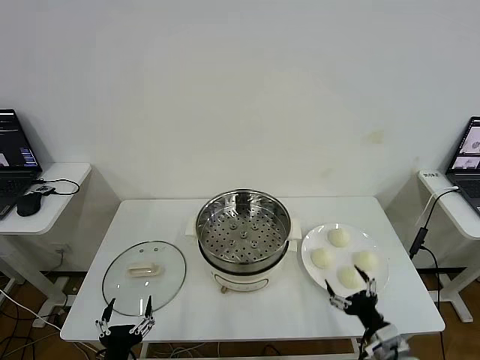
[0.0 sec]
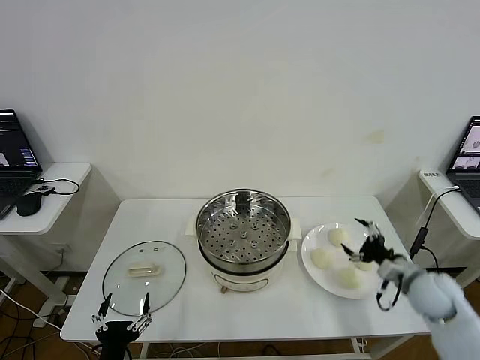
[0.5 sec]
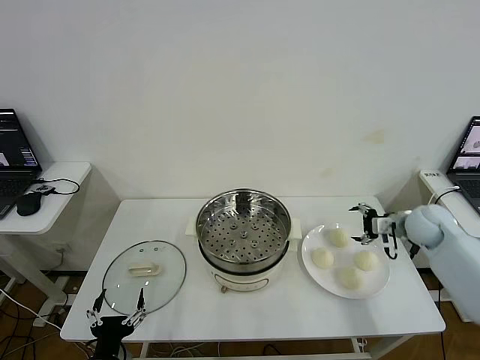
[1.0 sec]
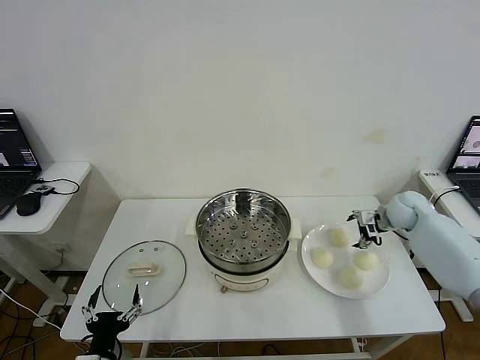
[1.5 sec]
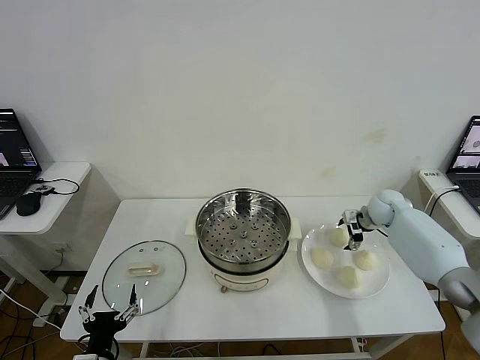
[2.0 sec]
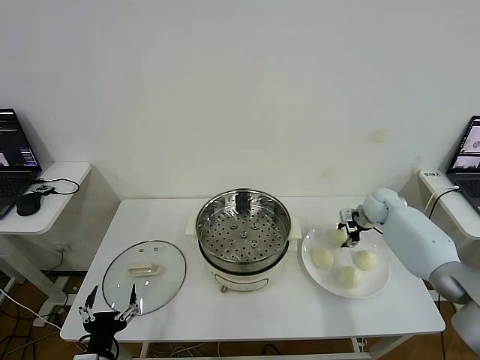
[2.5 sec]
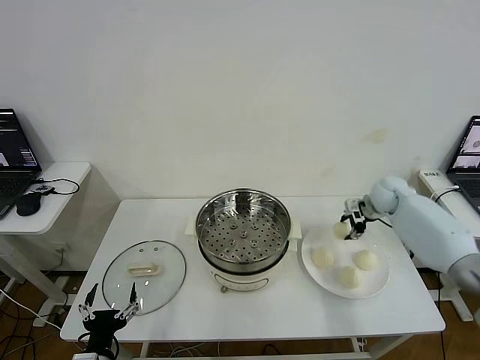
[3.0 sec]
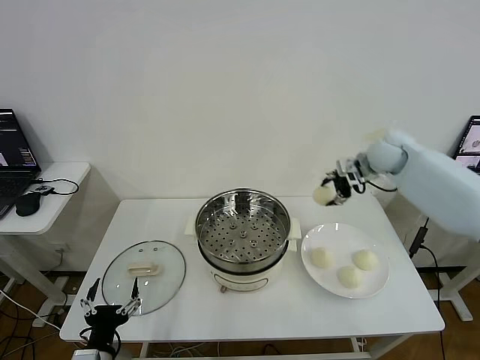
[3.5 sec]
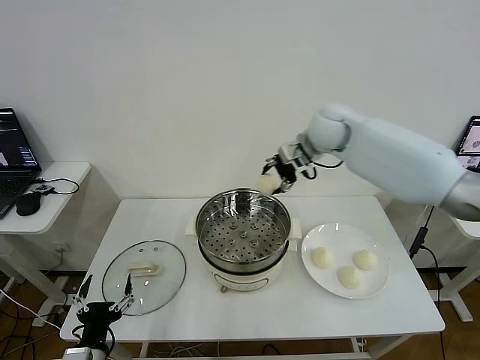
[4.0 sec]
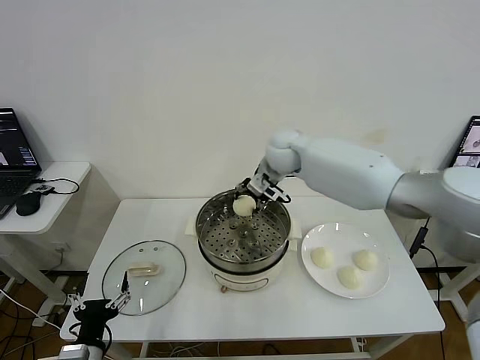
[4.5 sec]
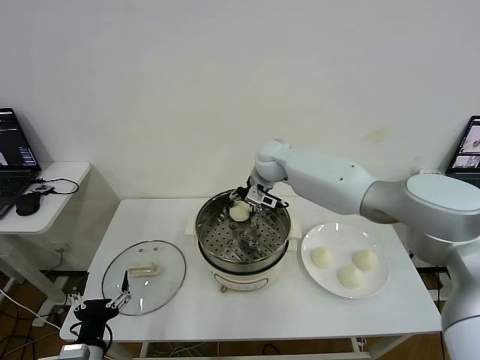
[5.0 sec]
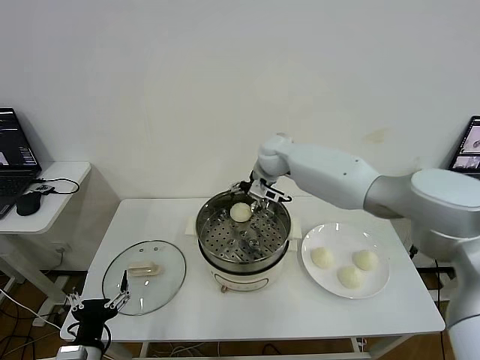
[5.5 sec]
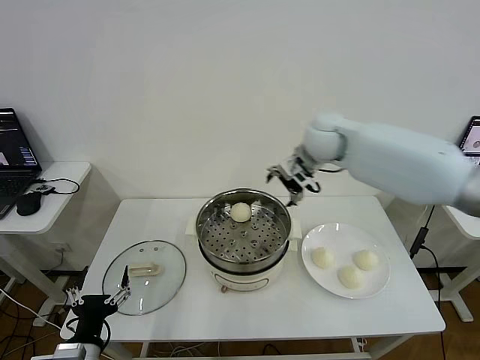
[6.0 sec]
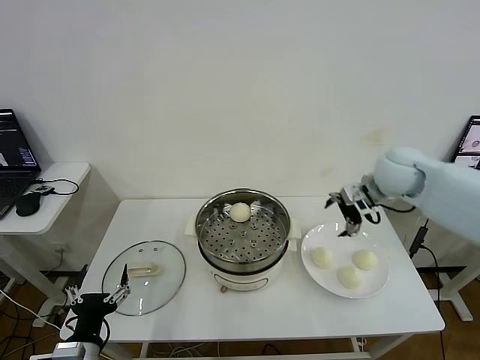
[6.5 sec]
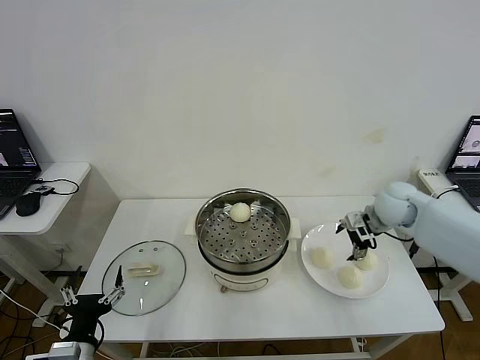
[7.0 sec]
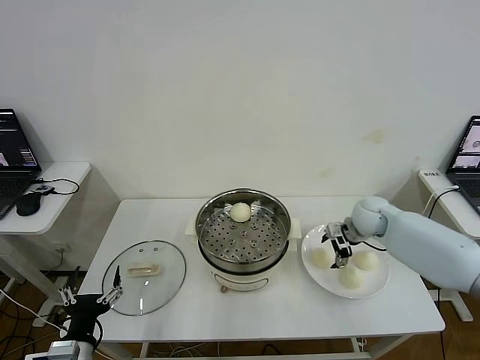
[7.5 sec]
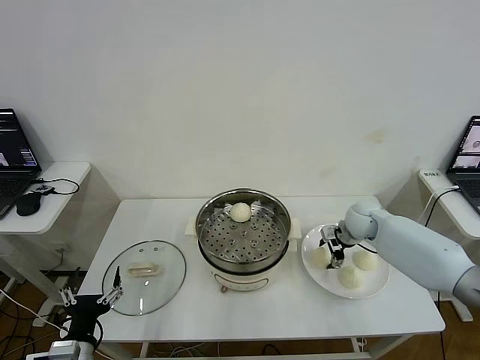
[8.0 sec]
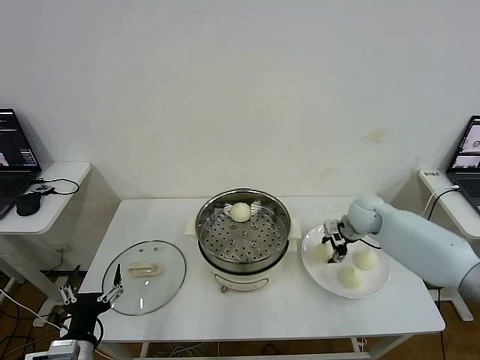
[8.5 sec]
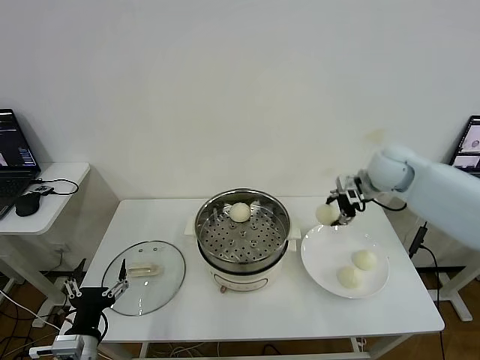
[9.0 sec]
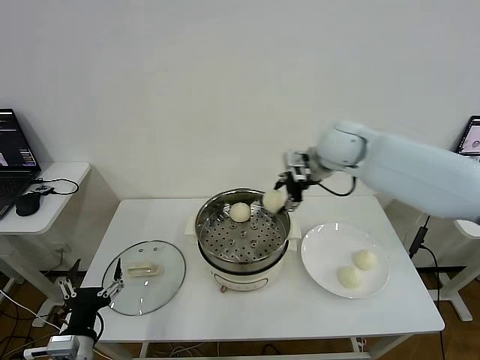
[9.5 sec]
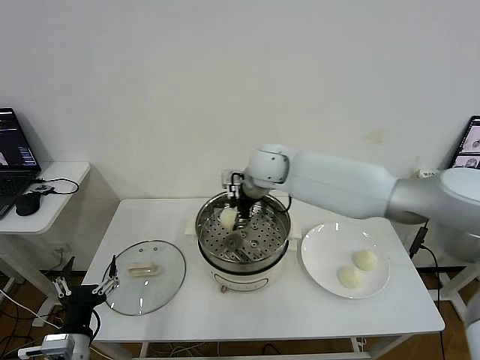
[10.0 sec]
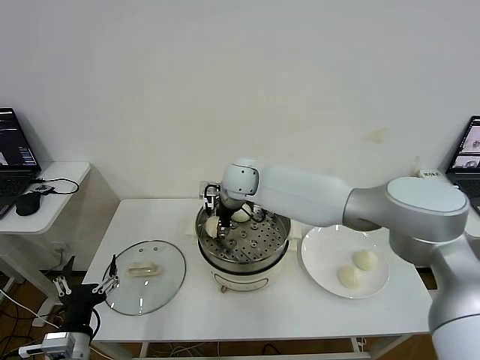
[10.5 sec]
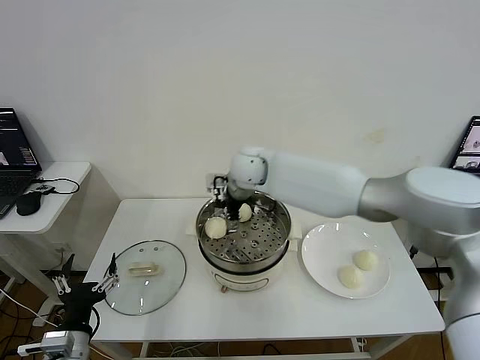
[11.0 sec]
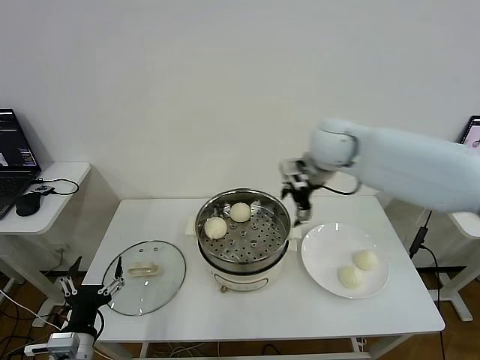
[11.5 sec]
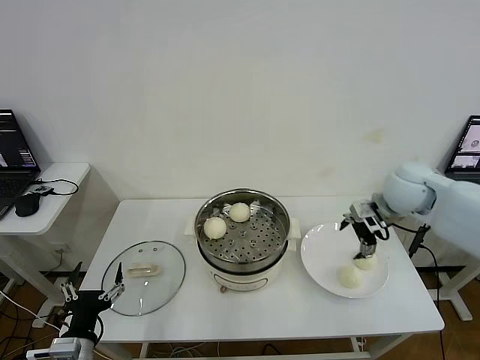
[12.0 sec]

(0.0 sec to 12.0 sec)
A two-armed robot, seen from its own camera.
Step, 0.0 sec - 2.5 sec: Grasp the baozi in the plate with right gripper.
Step, 3.0 sec - 5.0 sec: Place the baozi on the steamer with right gripper.
Step, 5.5 sec - 8.0 sec: Grasp the baozi in the plate with right gripper.
Step, 8.5 sec - 10.5 sec: Place the baozi on the steamer with right gripper.
2.0 sec - 4.0 sec: The right gripper heads upward and to the left, covering some 30 cm, and closes its fingers.
4.0 sec - 6.0 sec: The right gripper reaches some 10 cm to the left, then returns, and opens up.
6.0 sec - 8.0 sec: The right gripper moves downward and to the right, some 25 cm, and closes up.
8.0 sec - 10.0 sec: The right gripper is displaced to the left and upward by about 30 cm.
10.0 sec - 12.0 sec: The right gripper is displaced to the right by some 30 cm, and opens up.

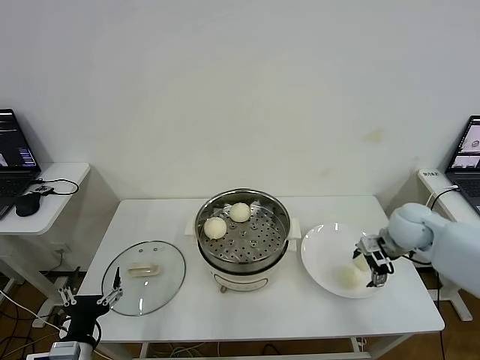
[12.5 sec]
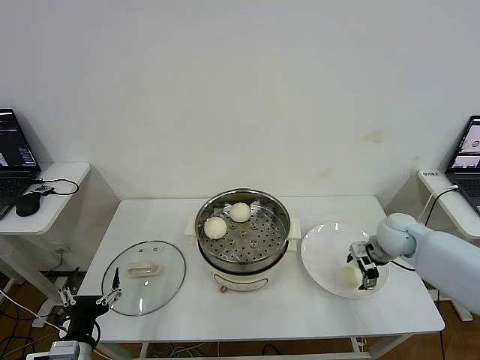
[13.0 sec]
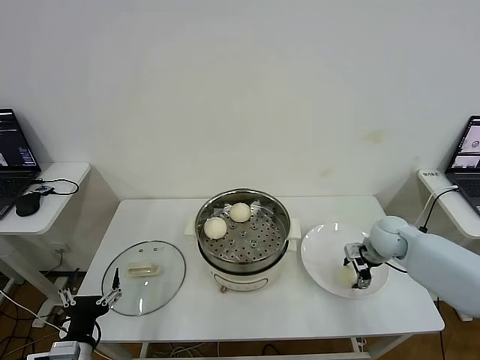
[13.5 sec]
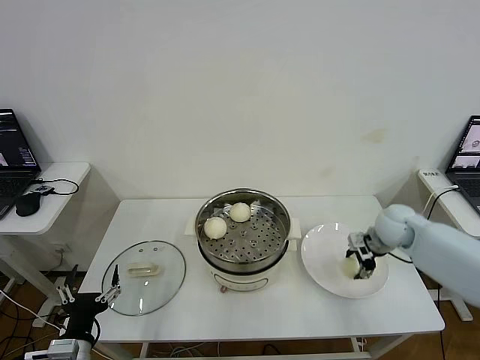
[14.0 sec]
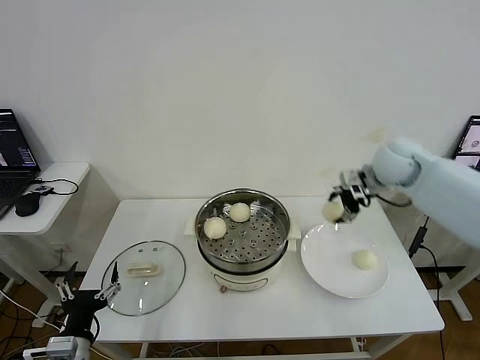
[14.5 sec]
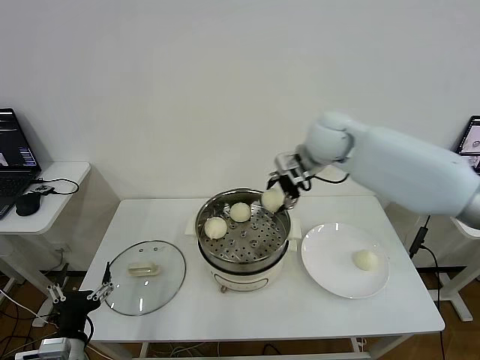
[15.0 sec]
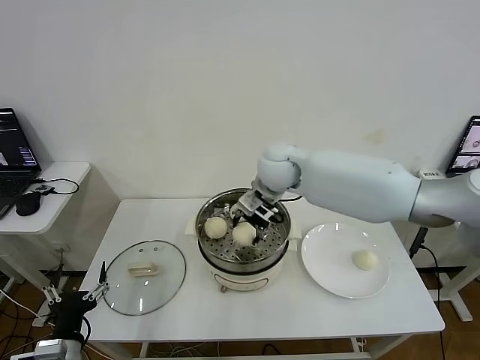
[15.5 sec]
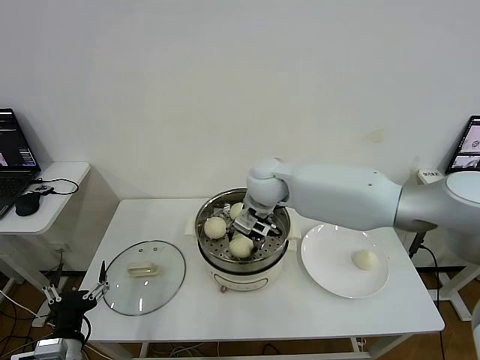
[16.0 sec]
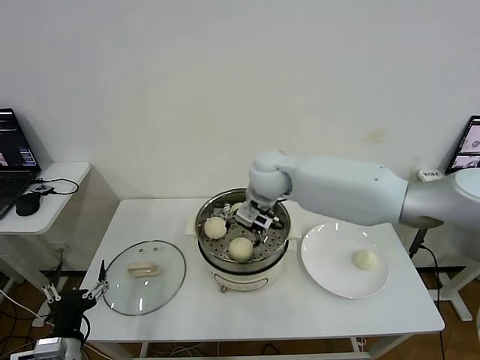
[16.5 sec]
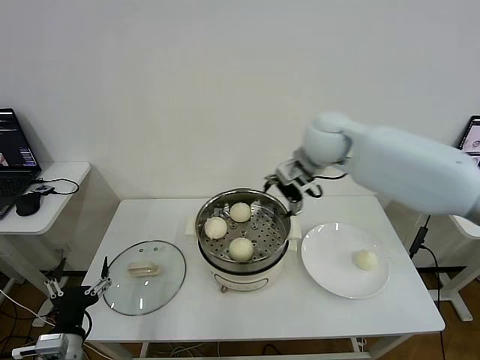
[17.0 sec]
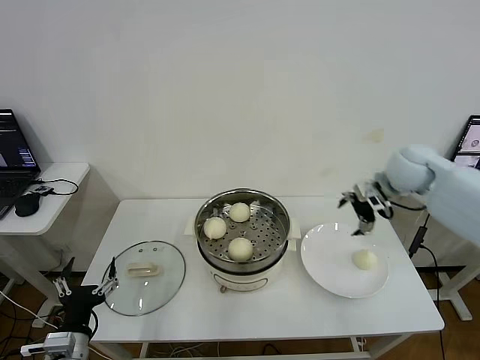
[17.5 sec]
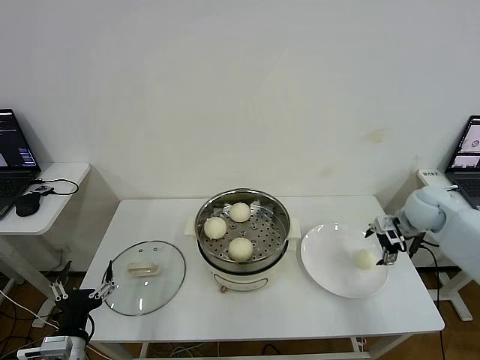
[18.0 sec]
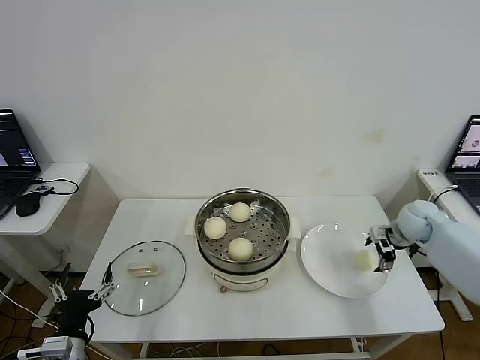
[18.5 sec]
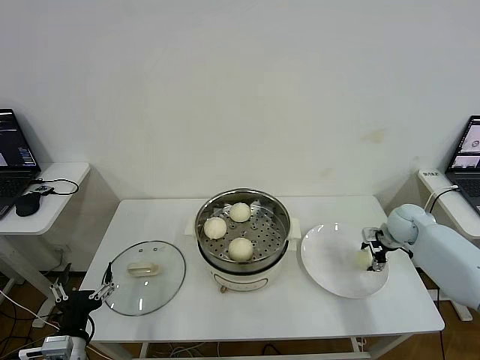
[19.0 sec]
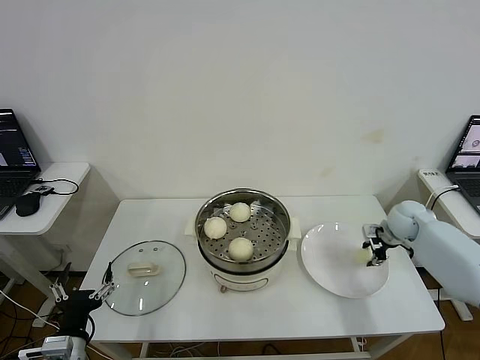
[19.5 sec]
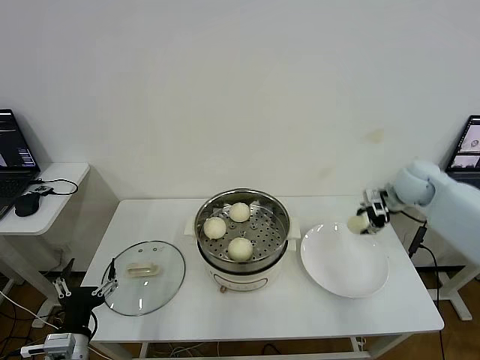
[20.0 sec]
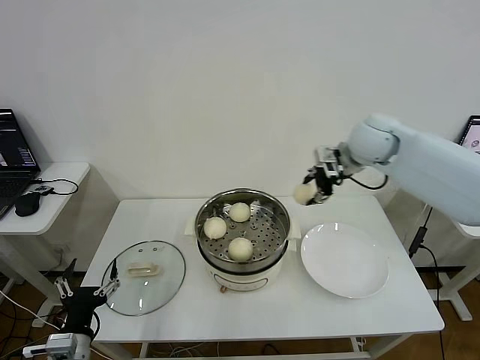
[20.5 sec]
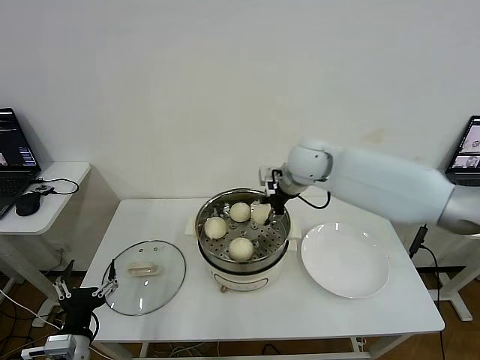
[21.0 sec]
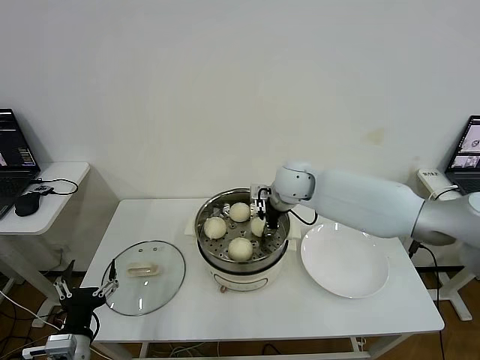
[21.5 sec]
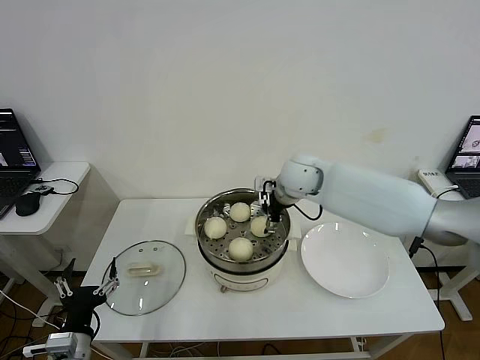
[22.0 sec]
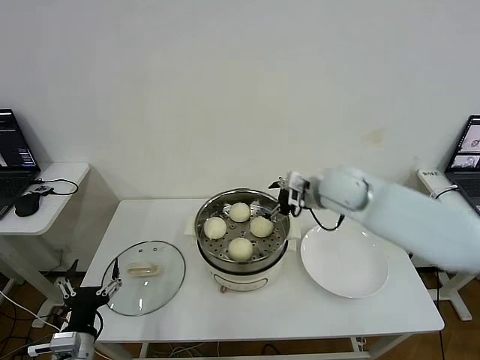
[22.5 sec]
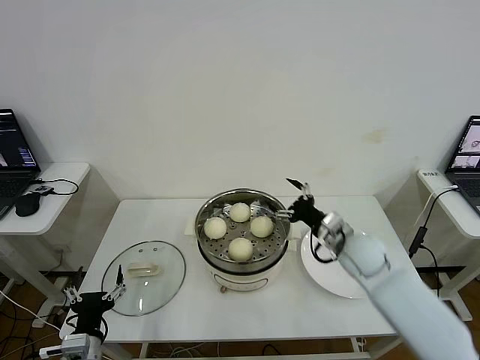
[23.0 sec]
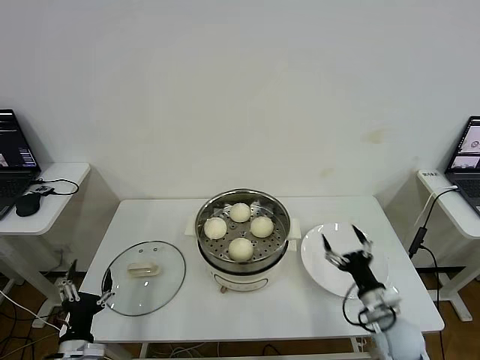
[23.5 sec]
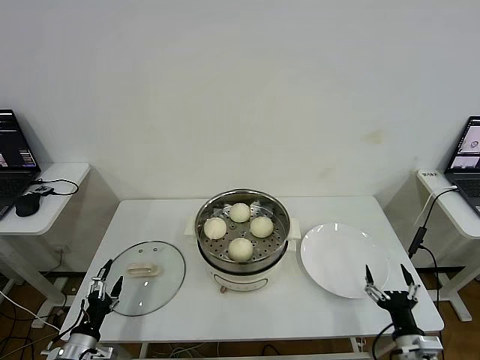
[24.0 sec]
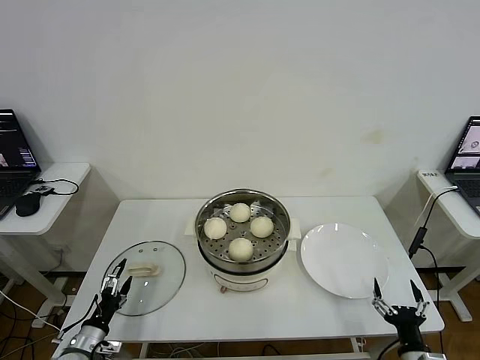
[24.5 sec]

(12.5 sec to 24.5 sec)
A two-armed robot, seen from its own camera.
Step, 14.0 sec - 16.0 sec: Place the baozi on the steamer with right gripper.
Step, 16.5 sec - 19.0 sec: Grasp the baozi in the plate with right gripper.
Step, 19.5 sec - 21.5 sec: Place the baozi on the steamer with right gripper.
12.5 sec - 14.5 sec: The right gripper travels upward, forward and to the left by roughly 15 cm, and closes.
14.5 sec - 16.5 sec: The right gripper is displaced to the left by approximately 25 cm, and opens.
16.5 sec - 18.5 sec: The right gripper shifts roughly 40 cm to the right.
18.5 sec - 20.5 sec: The right gripper heads upward and to the left, covering roughly 25 cm, and closes its fingers.
20.5 sec - 22.5 sec: The right gripper moves downward, to the left and backward, approximately 10 cm, and opens its fingers.
22.5 sec - 24.5 sec: The right gripper travels backward, downward and to the right by roughly 50 cm, while the left gripper goes about 15 cm downward and to the left.

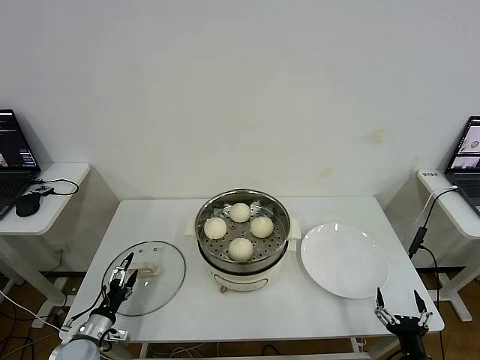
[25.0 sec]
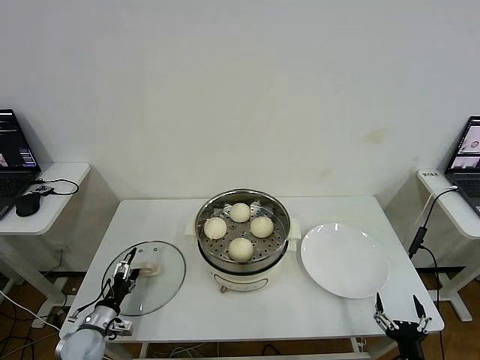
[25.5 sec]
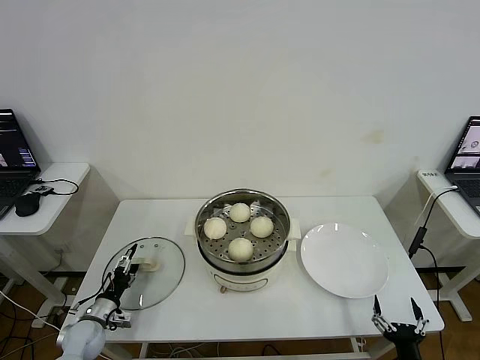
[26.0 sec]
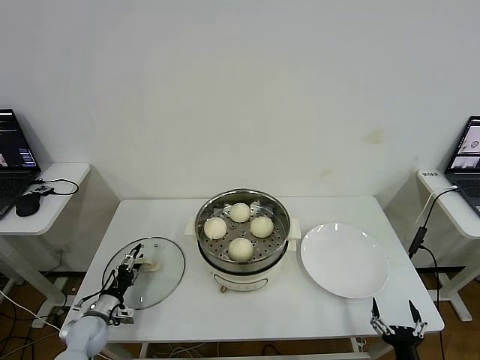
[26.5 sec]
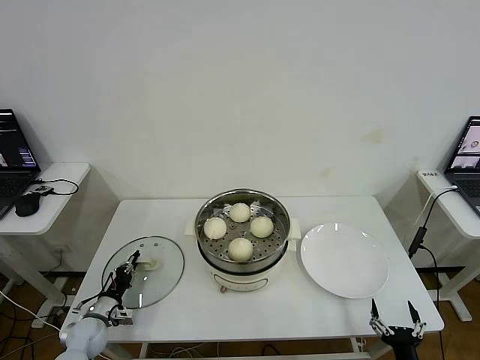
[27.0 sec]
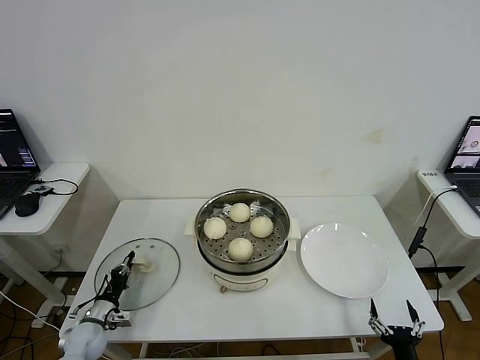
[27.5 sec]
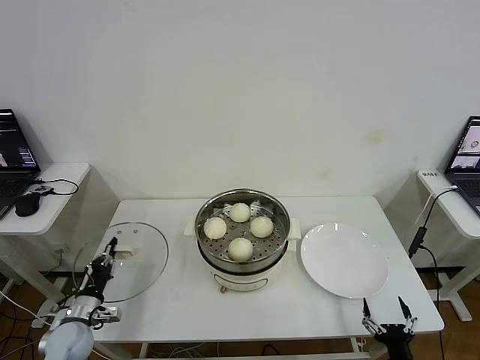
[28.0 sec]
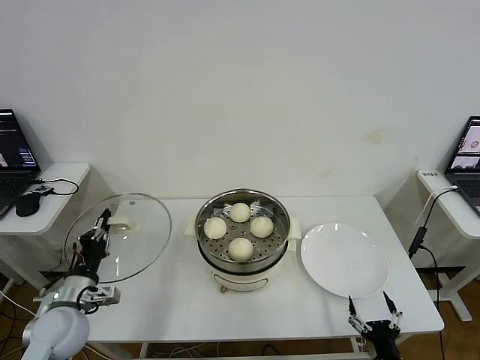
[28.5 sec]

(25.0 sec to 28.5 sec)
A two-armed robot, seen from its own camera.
Step, 25.0 sec - 27.0 sec: Grasp the pot lid with left gripper.
25.0 sec - 27.0 sec: The left gripper moves forward, about 5 cm, and closes its fingers.
27.0 sec - 28.5 sec: The left gripper travels upward by about 20 cm.
